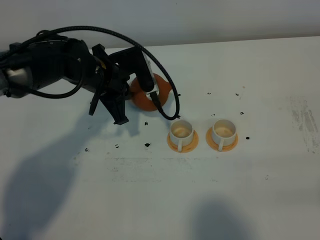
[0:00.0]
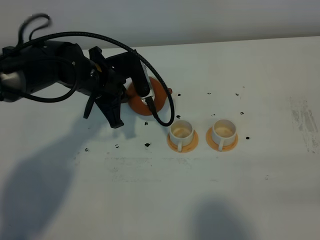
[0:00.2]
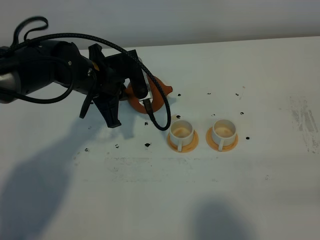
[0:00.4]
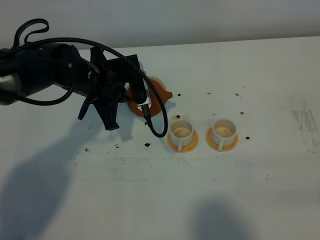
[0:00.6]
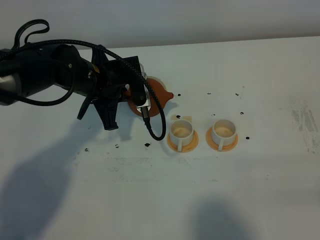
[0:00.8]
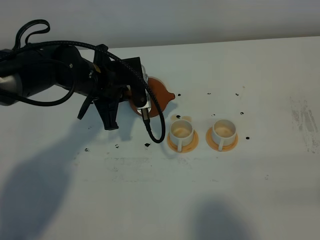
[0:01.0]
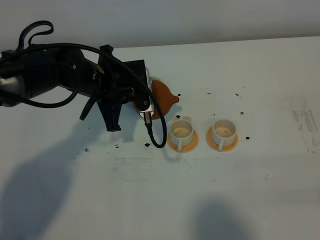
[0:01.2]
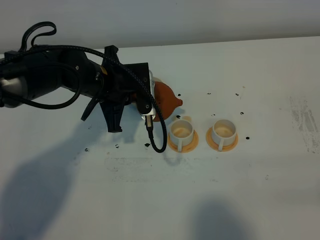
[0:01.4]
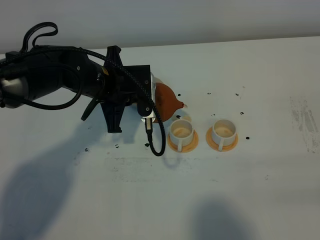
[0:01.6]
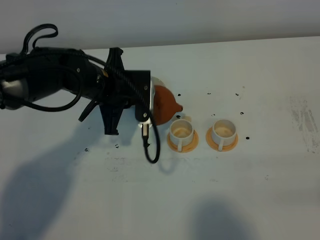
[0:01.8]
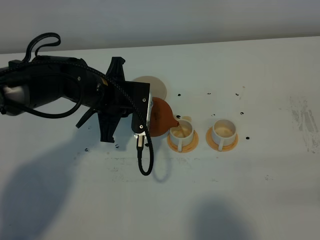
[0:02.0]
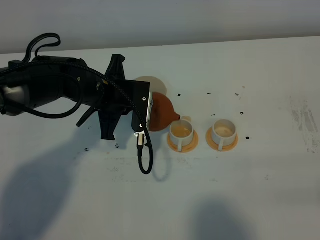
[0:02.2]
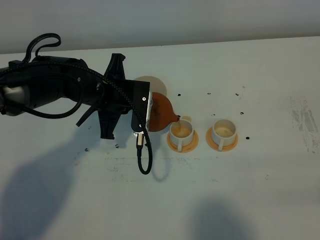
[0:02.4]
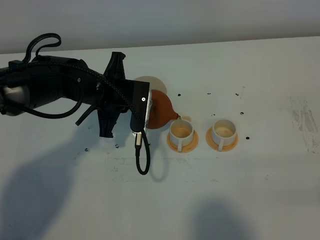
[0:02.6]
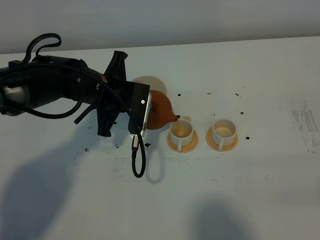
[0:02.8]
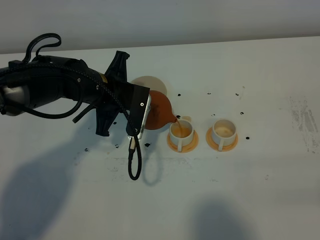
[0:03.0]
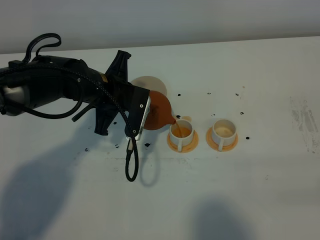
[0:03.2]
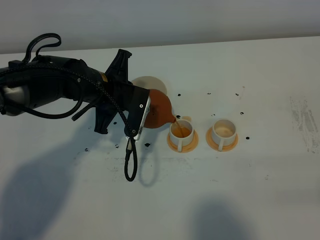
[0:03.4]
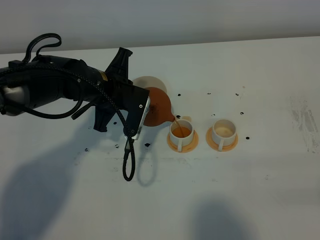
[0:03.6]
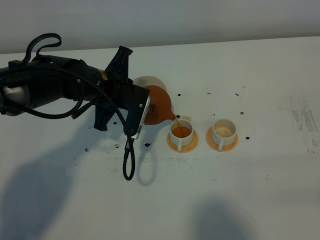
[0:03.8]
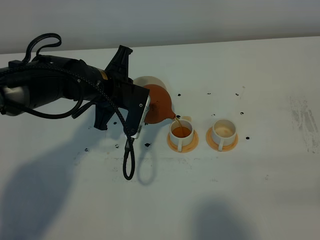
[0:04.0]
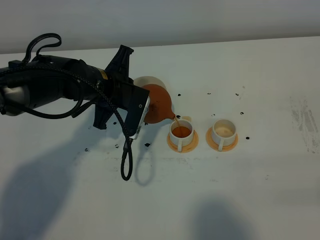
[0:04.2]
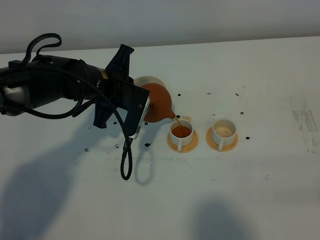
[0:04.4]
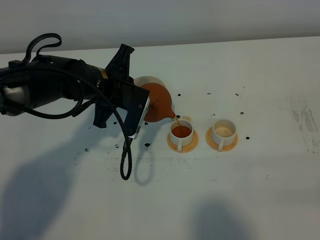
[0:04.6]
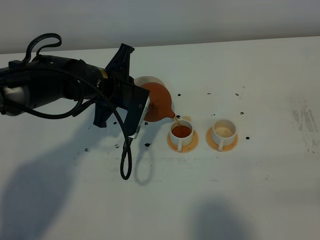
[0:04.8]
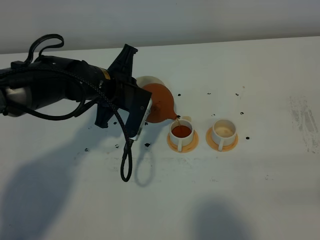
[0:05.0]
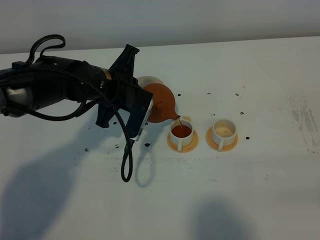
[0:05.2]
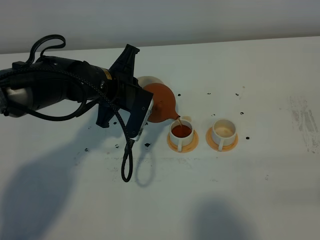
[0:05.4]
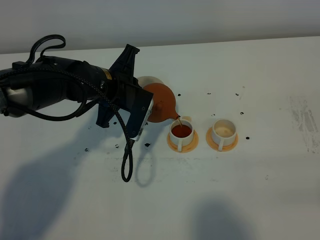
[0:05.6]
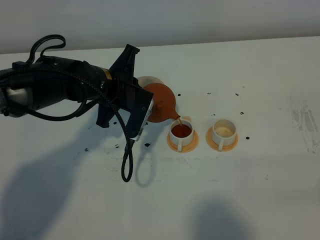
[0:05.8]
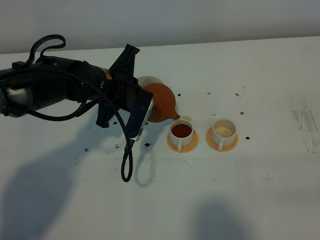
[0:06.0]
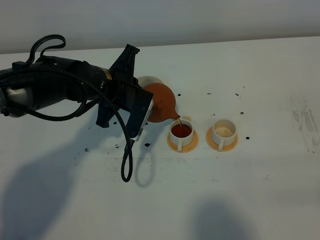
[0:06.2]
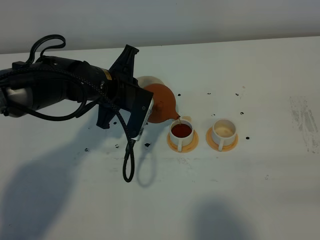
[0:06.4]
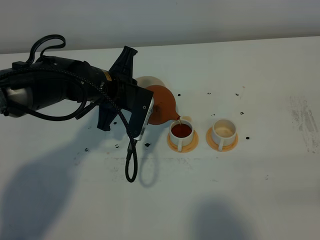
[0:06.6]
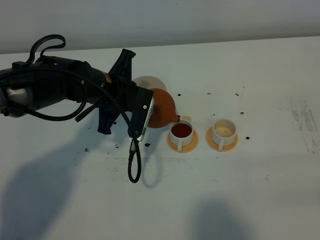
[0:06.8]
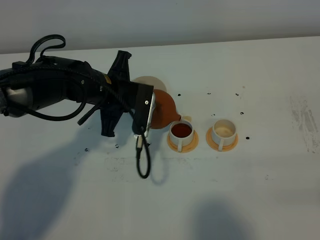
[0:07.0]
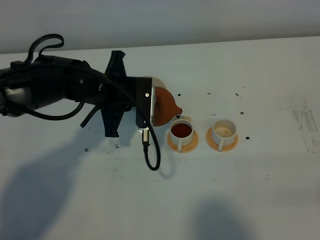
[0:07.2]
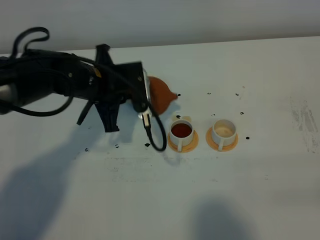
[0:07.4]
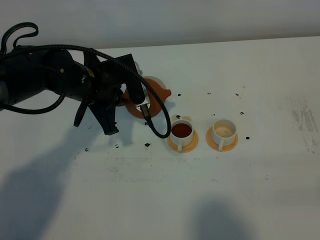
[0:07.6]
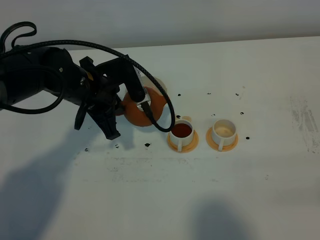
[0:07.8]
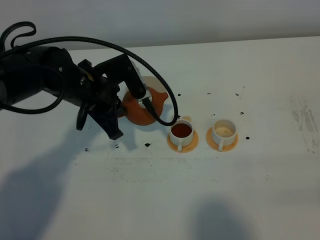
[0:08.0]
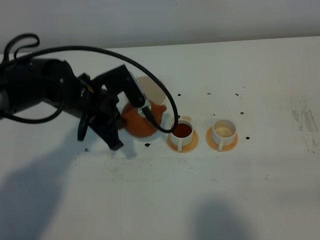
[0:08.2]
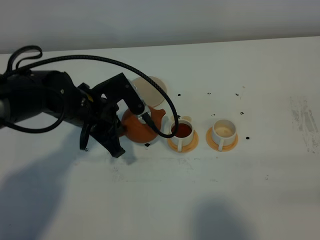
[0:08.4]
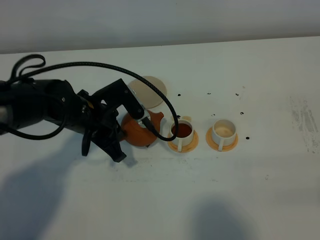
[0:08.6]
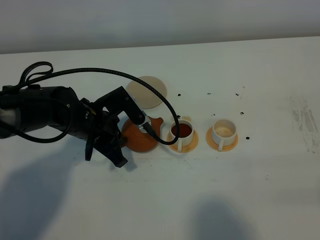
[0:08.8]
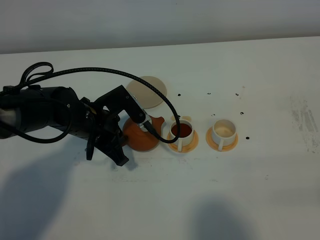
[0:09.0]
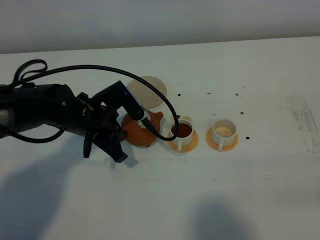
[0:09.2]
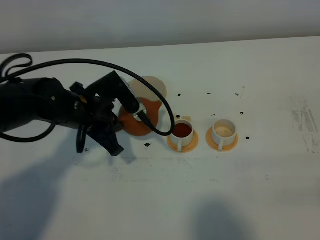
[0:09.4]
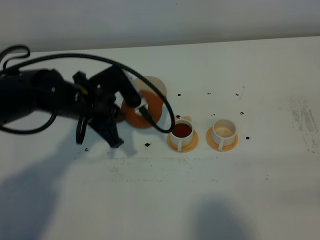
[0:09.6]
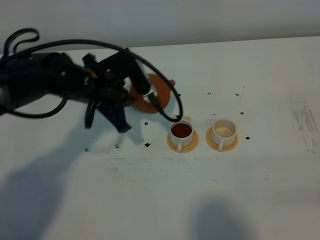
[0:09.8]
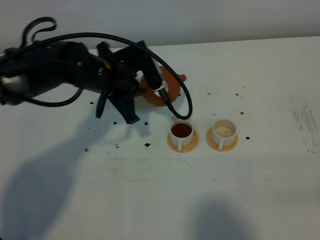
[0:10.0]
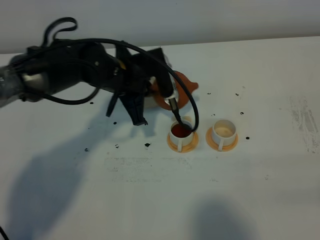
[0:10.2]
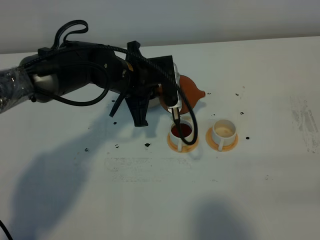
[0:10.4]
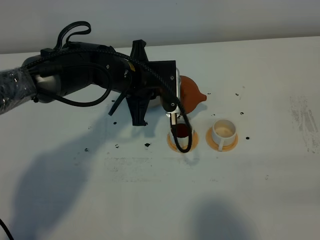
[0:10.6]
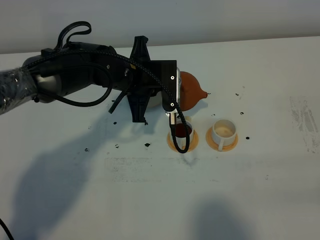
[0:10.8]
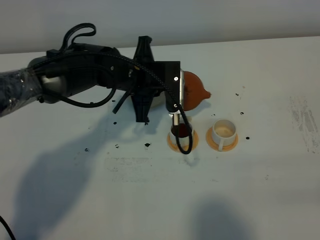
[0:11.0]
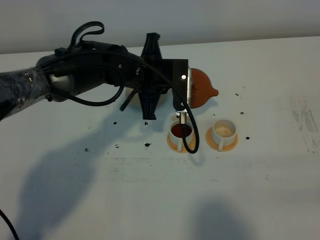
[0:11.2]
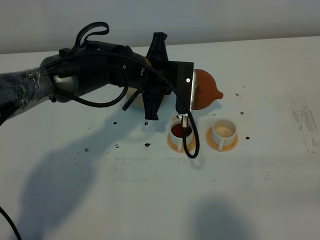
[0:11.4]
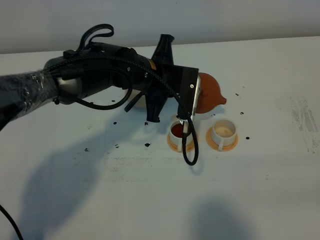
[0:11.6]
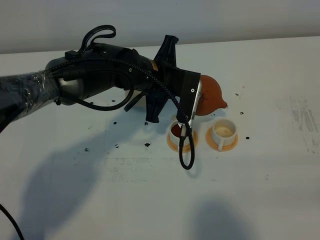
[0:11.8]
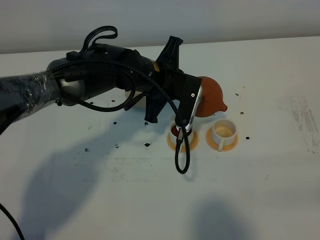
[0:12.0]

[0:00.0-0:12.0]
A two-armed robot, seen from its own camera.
Task of the whole recording: grasp the brown teapot and pour the tea into the two white teacups one by one, put the brown teapot back in its original place.
0:00.0 to 0:01.6: The grippers make only small movements.
0:01.6 to 0:03.0: The grippers stay close to where they were, moving slightly.
0:03.0 to 0:04.4: The grippers move only a little.
0:04.4 to 0:06.0: The two grippers keep their place.
0:07.6 to 0:09.0: The left gripper is displaced downward by some 5 cm.
0:09.0 to 0:10.4: The left gripper moves to the right, forward and upward, some 10 cm.

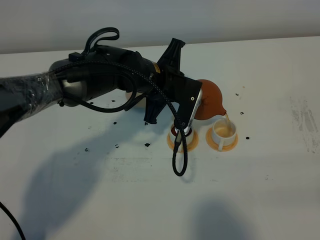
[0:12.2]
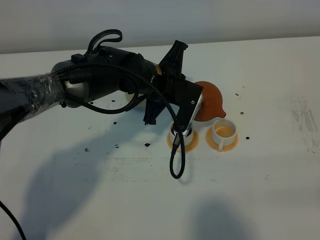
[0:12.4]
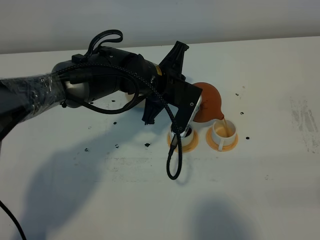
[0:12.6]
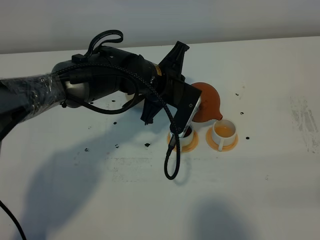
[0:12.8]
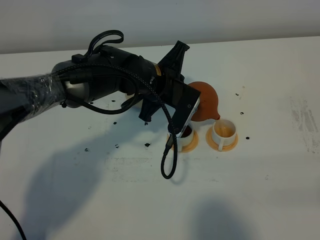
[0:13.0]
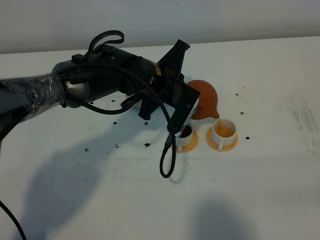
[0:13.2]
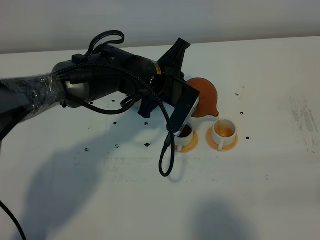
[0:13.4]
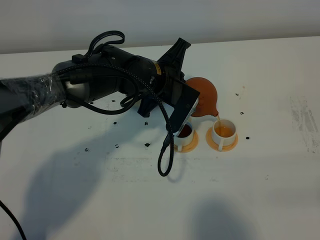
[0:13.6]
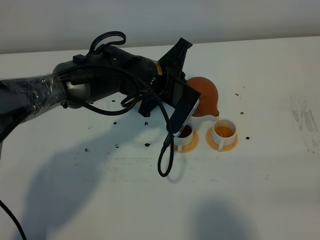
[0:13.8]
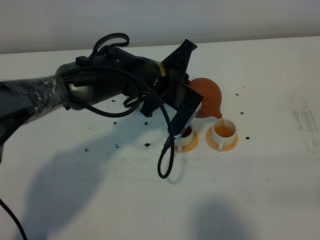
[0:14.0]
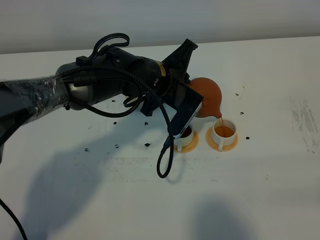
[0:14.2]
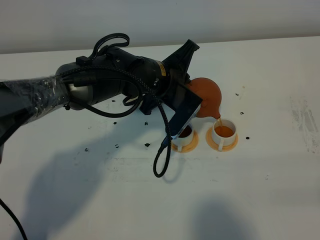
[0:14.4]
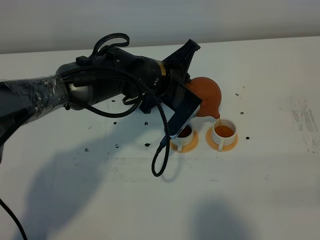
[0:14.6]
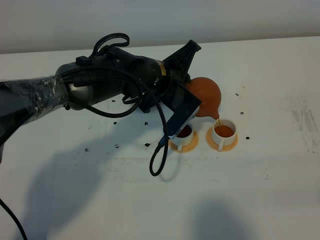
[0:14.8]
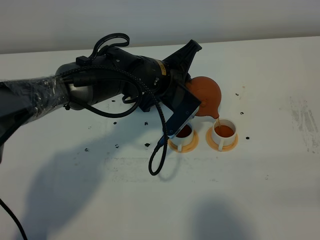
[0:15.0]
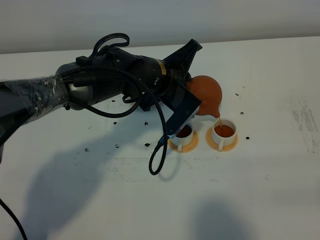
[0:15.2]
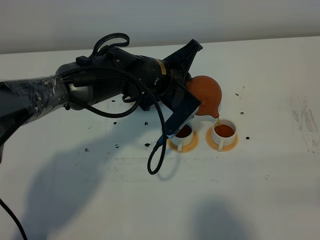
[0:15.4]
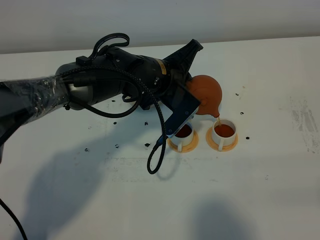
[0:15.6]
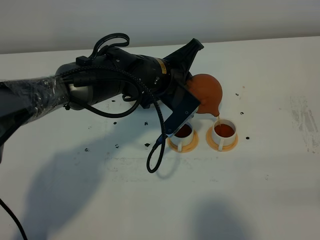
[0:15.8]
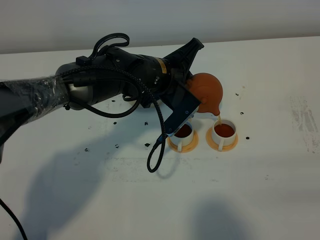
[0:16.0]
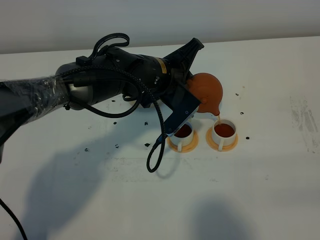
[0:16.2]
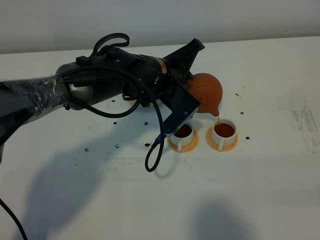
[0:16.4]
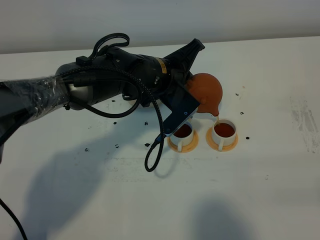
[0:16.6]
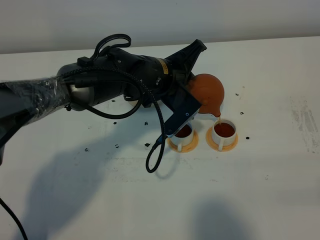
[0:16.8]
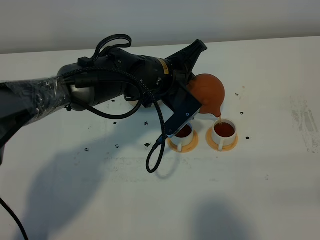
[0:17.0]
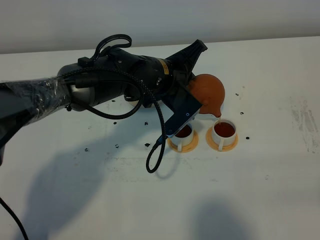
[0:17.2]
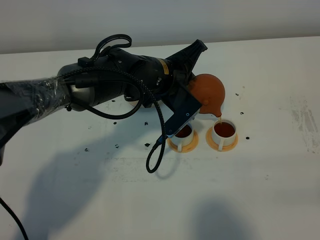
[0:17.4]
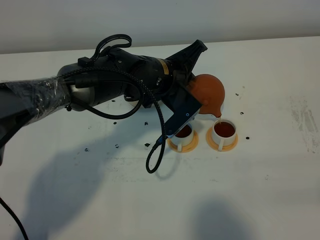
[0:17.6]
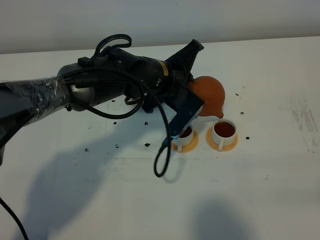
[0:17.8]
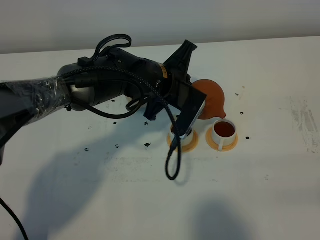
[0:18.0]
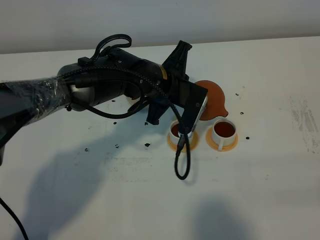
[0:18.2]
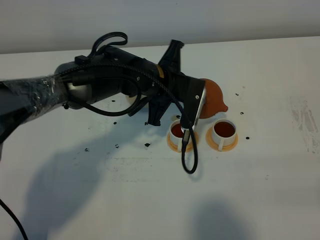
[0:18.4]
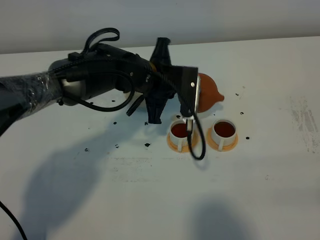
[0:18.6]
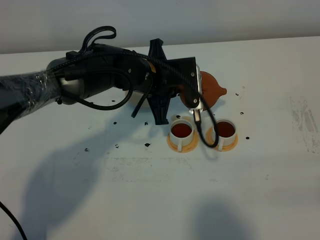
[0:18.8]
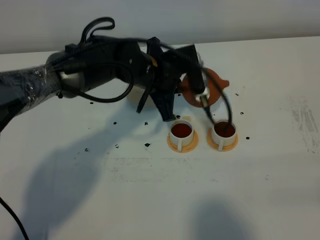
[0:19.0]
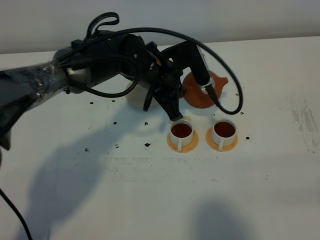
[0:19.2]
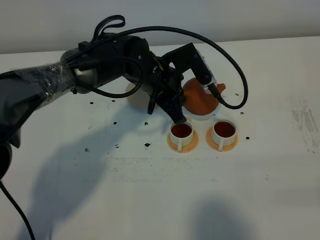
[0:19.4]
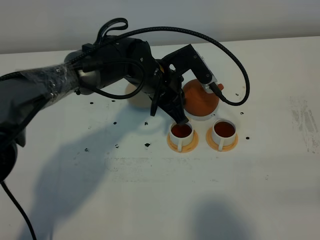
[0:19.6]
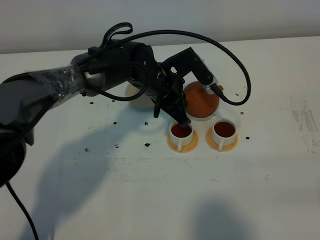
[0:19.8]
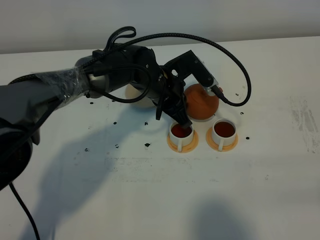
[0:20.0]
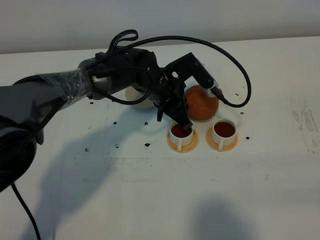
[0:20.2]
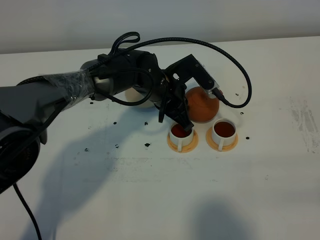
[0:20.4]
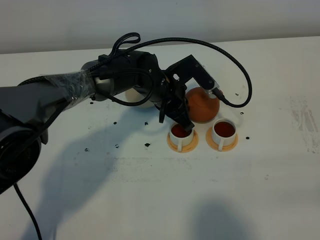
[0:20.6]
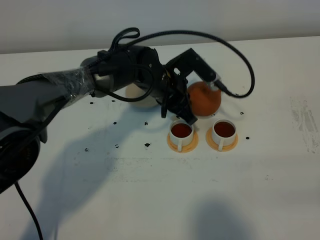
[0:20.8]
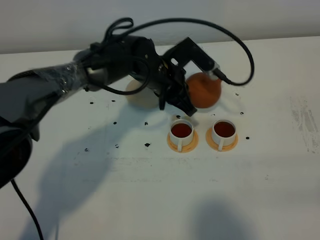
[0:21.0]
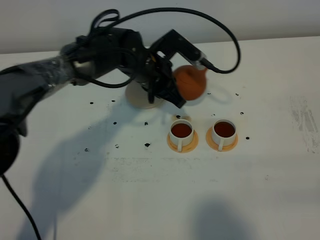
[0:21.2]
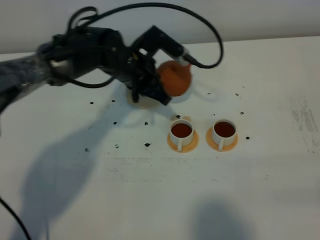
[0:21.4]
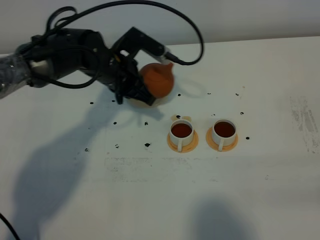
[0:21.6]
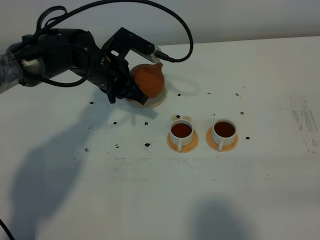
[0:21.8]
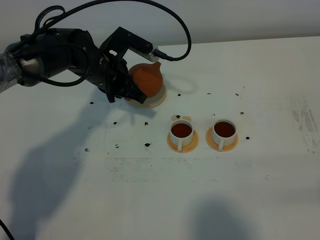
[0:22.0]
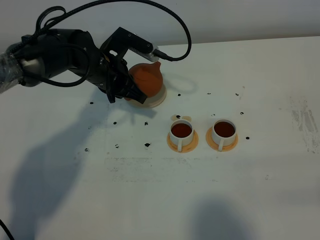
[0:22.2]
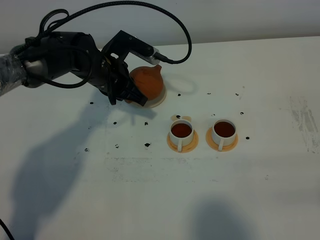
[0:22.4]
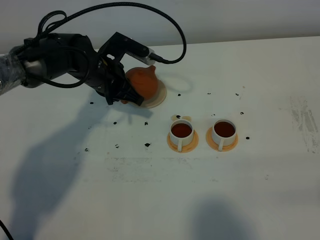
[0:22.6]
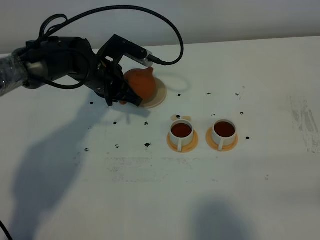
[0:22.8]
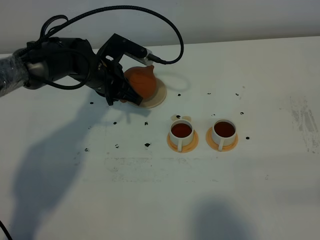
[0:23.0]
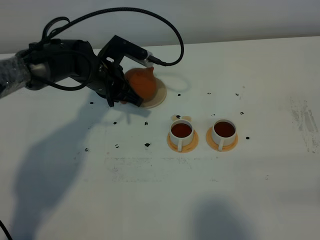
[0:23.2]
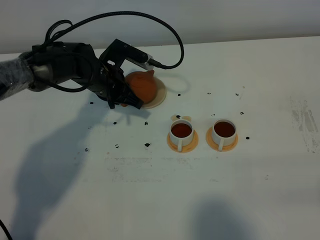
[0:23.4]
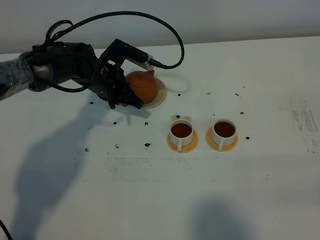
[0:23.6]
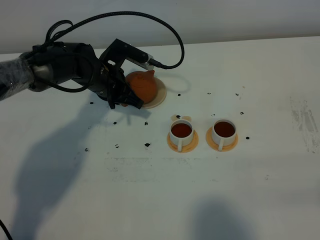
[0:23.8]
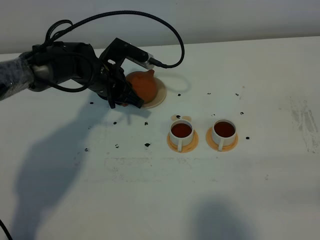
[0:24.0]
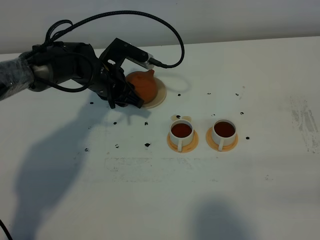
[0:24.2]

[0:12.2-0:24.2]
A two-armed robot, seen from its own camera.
Task of the whole recording: grasp the brown teapot and pour the tea into the two white teacups one by one, put the brown teapot back in its original place.
Step, 0:12.2 to 0:18.2: Pour tea into the teacup with the left gripper.
0:12.2 to 0:13.8: The grippers make only small movements.
0:13.8 to 0:15.2: The grippers make only small movements.
0:15.2 to 0:16.6: Both grippers stay about where they are.
0:19.8 to 0:21.2: There are only small adjustments of the grippers.
0:21.2 to 0:22.6: The left gripper moves to the left, about 10 cm.
0:22.6 to 0:24.2: The left gripper opens.
